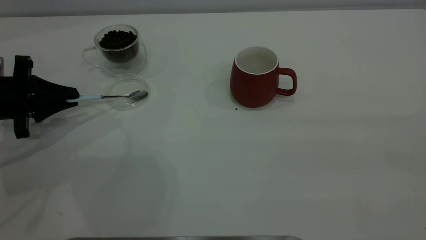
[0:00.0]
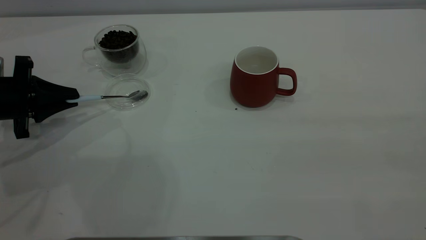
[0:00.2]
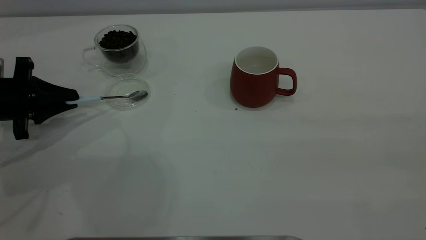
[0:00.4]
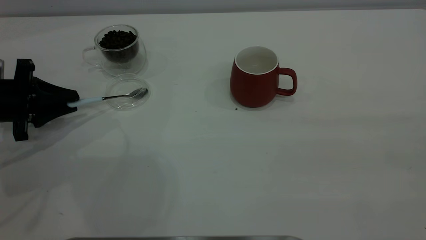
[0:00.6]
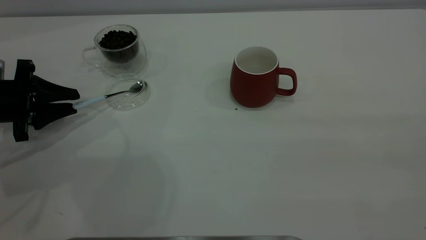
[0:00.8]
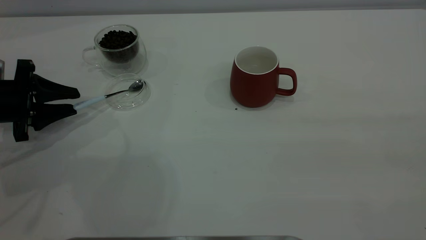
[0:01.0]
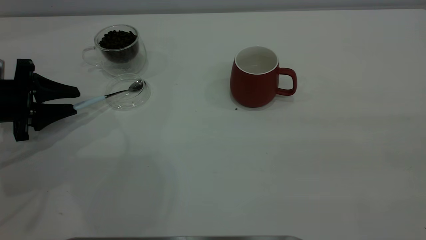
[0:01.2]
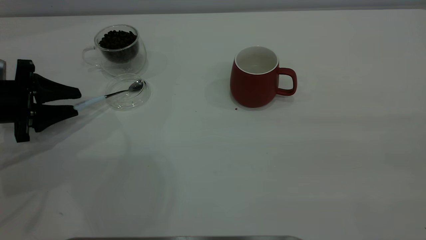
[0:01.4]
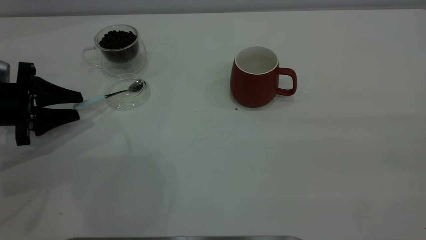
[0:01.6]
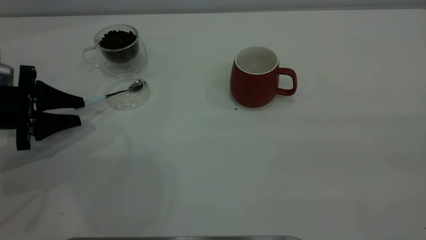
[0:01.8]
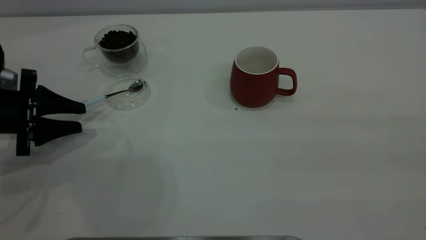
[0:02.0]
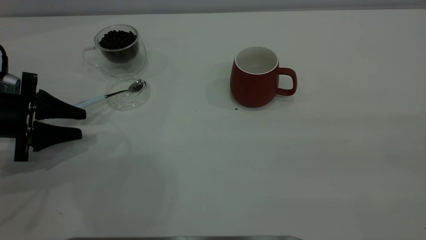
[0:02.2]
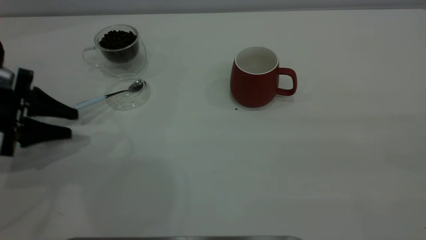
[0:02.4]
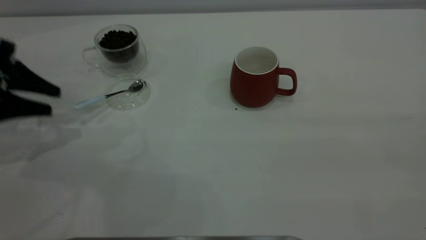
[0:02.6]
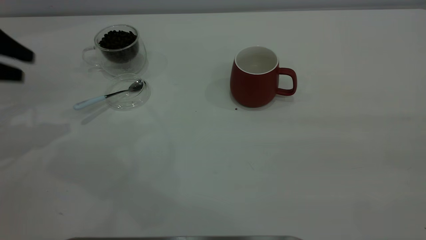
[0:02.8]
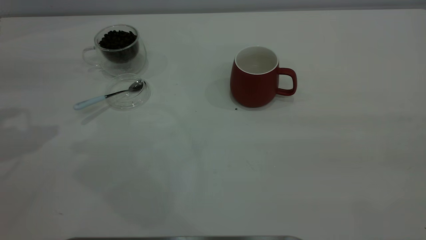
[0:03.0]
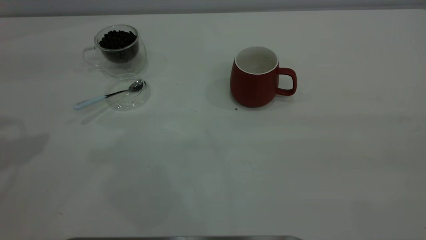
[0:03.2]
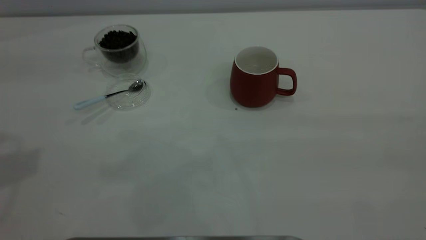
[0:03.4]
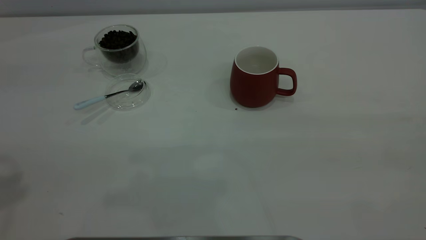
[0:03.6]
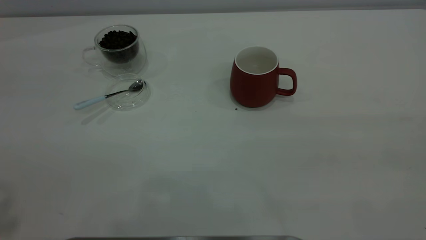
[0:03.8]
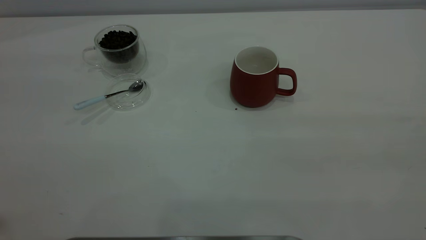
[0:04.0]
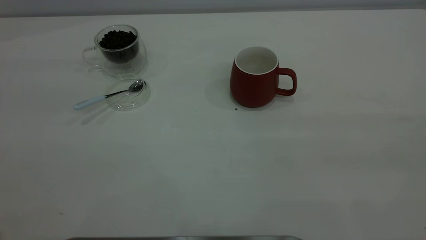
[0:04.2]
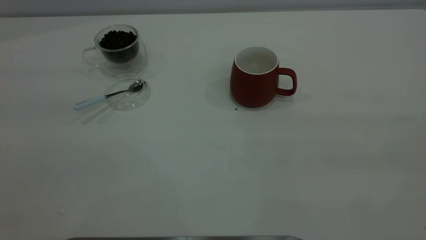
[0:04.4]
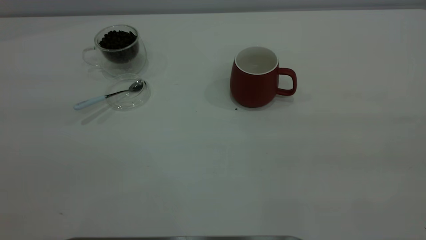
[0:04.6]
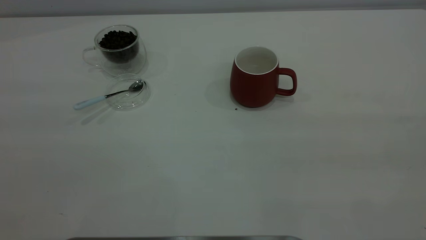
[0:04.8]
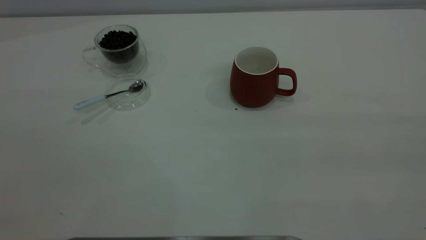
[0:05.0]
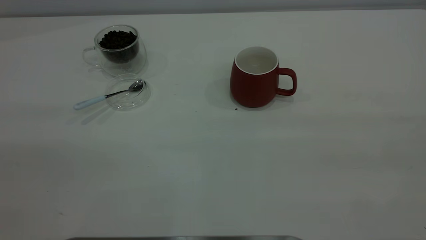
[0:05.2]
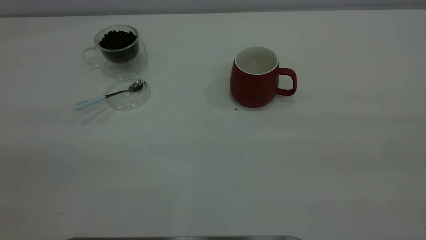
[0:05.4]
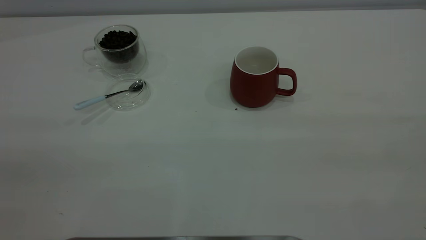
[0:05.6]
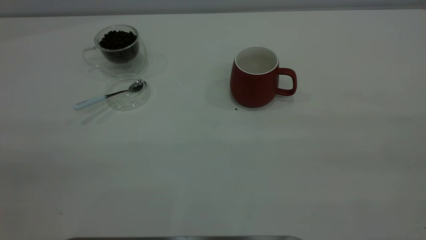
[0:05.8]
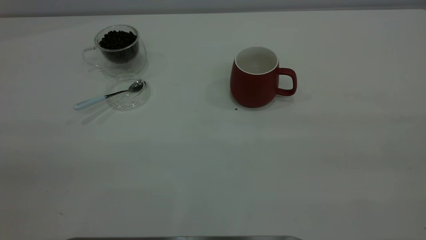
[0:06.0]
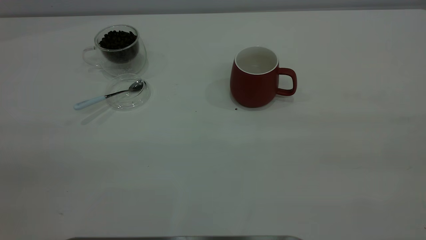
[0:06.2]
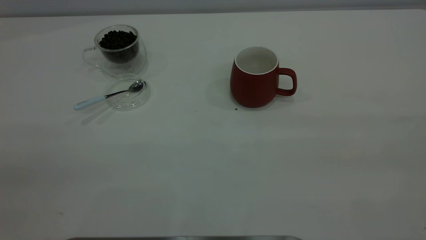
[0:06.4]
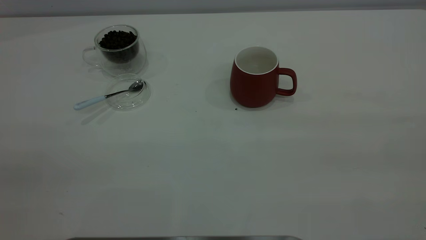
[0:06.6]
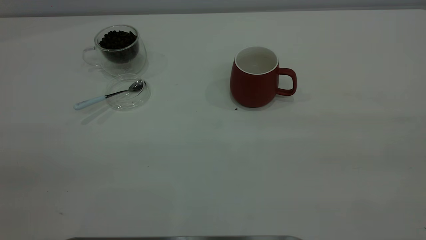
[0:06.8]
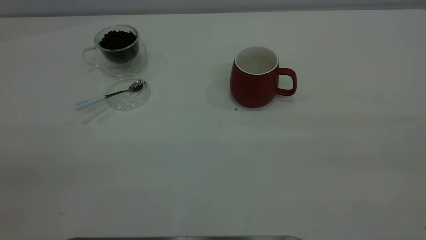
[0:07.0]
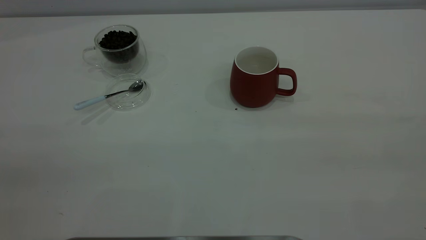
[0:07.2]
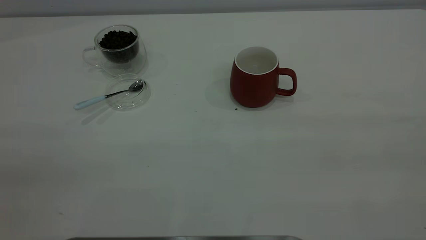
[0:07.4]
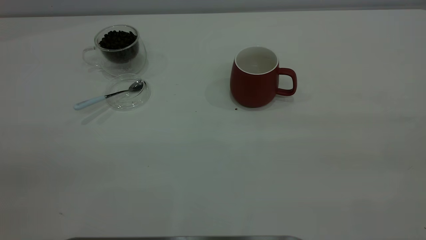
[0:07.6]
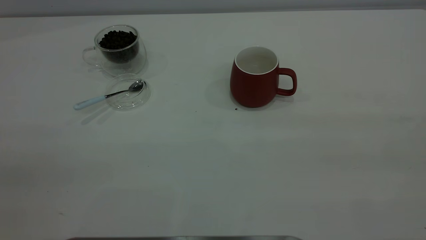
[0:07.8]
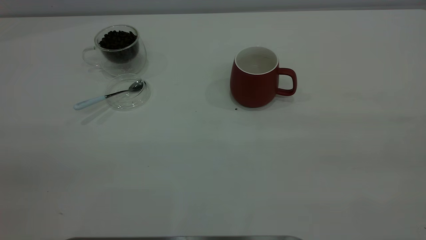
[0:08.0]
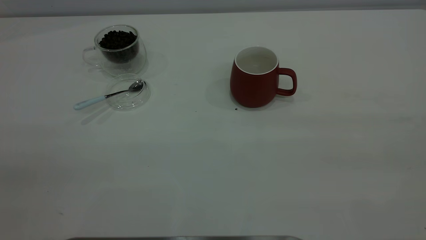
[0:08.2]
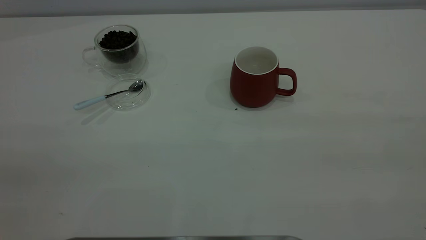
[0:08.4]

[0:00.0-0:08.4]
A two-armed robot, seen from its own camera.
Task of the whole recording: the right gripper place the red cup in the center of the table, the left gripper take the blue spoon from the cup lid and scoop out the coffee beans from the coffee cup and put them into the red cup, the left gripper put the spoon back into the cup lid.
Step, 0:00.0 to 0:02.0: Place the spoon back in its original place.
0:00.0 to 0:01.4: The left gripper opens up.
0:01.4 to 0:02.8: The left gripper shifts approximately 15 cm upward.
0:02.8 to 0:04.2: The left gripper moves upward and backward, approximately 35 cm.
0:07.0 to 0:08.4: Both grippers stay put.
